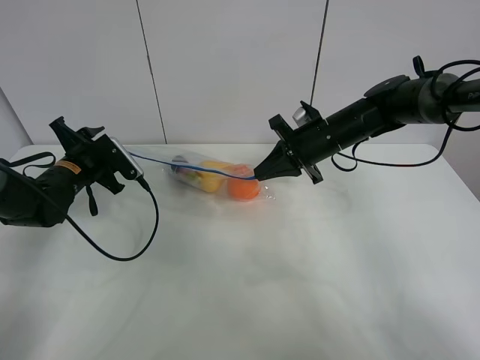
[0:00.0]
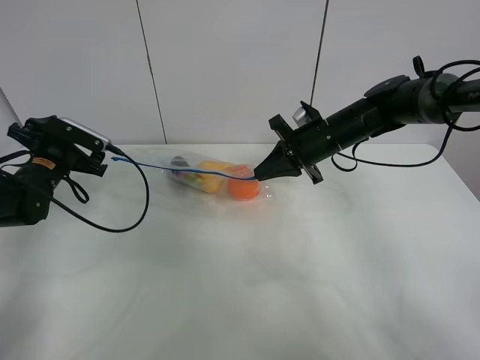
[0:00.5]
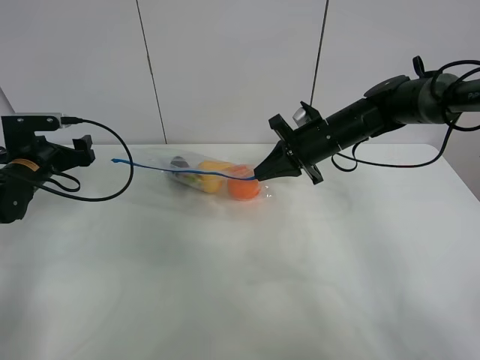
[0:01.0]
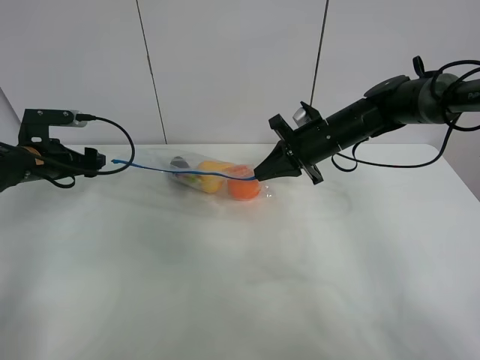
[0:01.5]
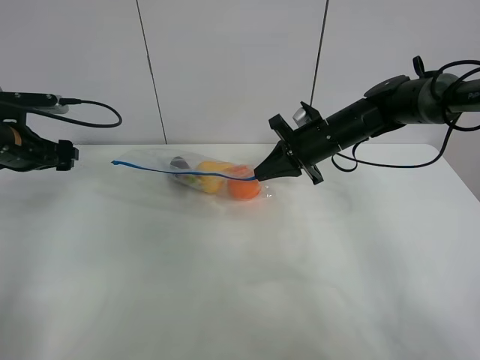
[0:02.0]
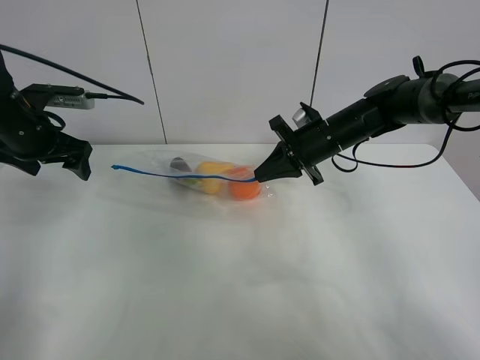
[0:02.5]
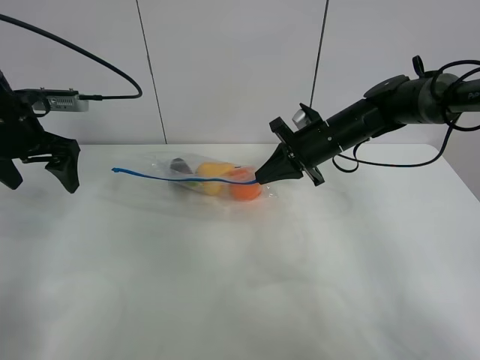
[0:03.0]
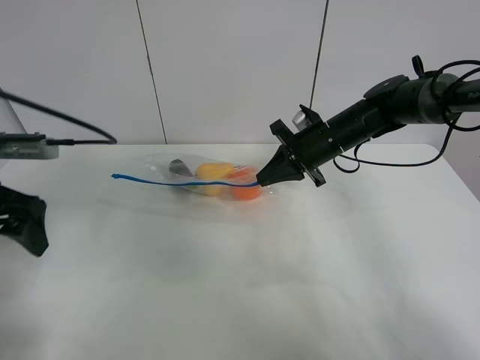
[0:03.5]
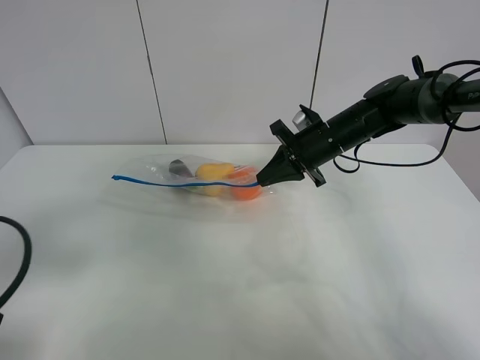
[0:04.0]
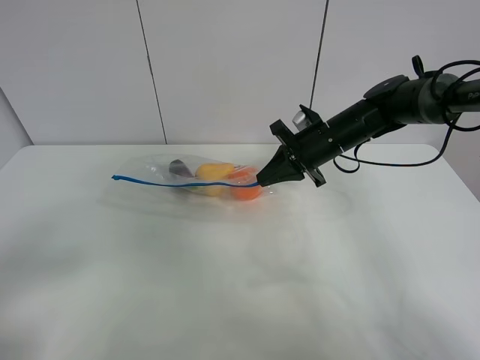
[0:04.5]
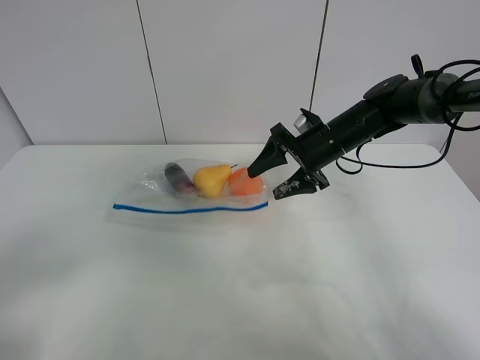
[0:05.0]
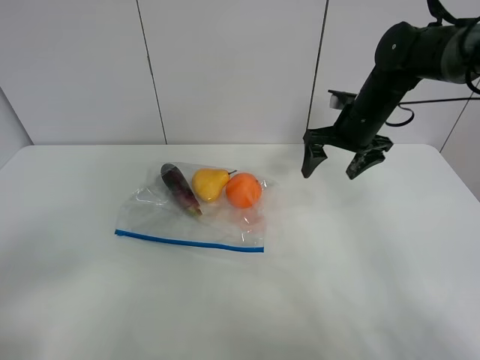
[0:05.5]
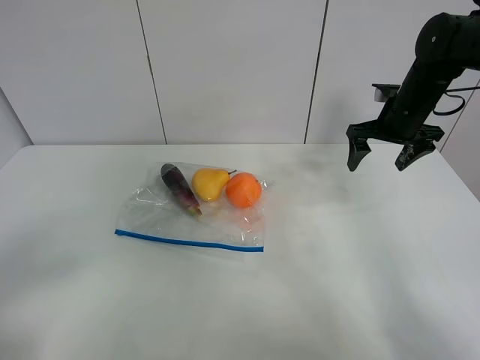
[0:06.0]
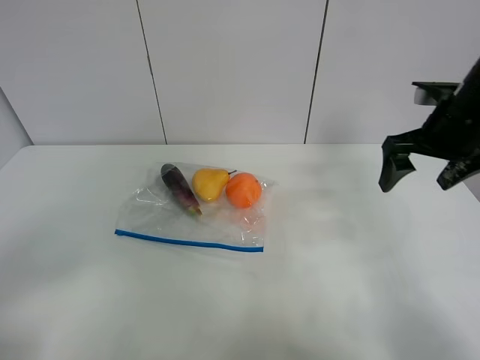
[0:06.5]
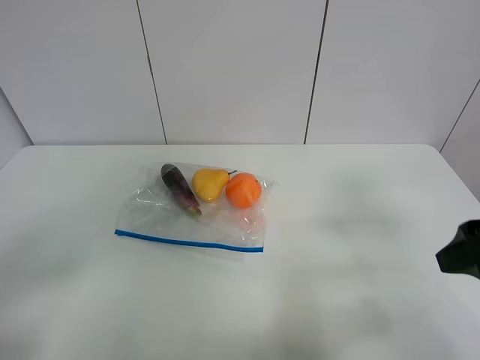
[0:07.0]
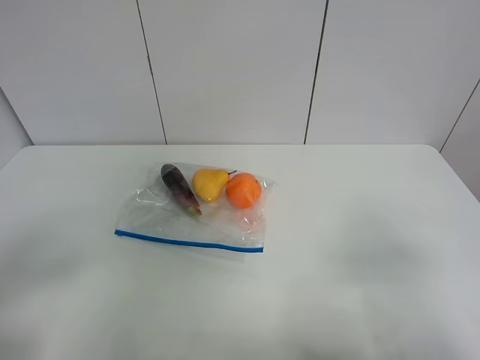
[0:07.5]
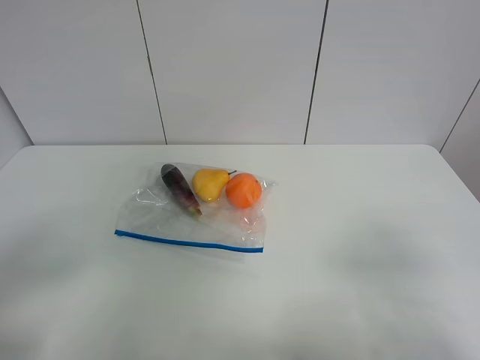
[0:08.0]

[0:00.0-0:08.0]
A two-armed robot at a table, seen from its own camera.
0:00.0 to 0:02.0: The left gripper goes roughly 10 cm upward and to the left.
0:02.0 to 0:04.0: The left gripper shifts some 30 cm backward.
0:04.0 to 0:06.0: The right gripper shifts some 15 cm to the right and upward, and opens up, while the left gripper moves backward, roughly 10 cm.
0:06.0 to 0:08.0: The right gripper heads backward, covering roughly 40 cm.
